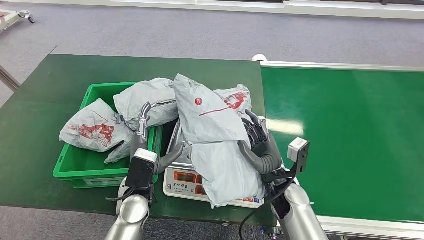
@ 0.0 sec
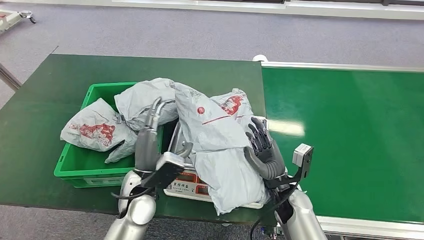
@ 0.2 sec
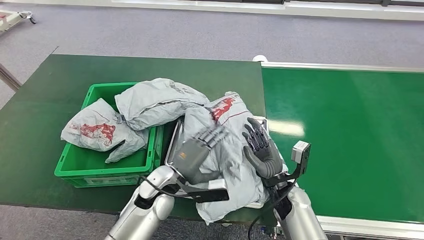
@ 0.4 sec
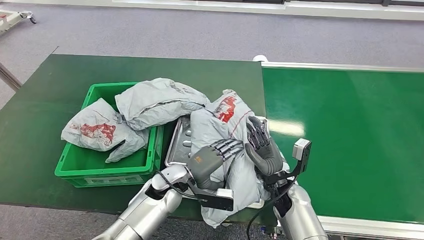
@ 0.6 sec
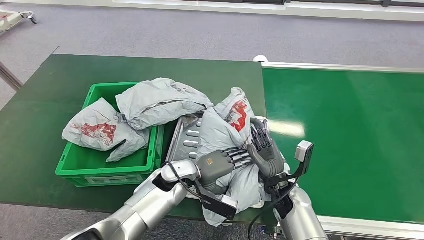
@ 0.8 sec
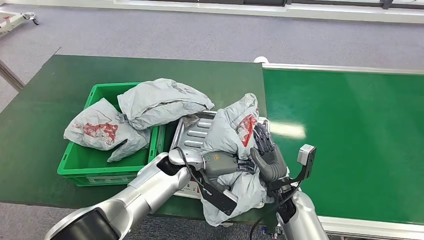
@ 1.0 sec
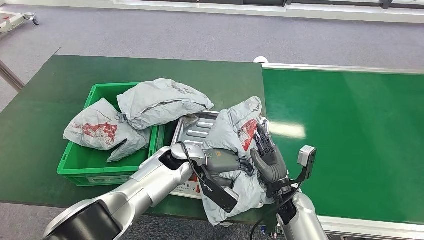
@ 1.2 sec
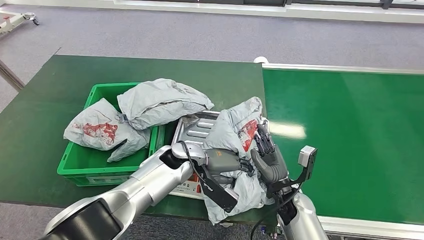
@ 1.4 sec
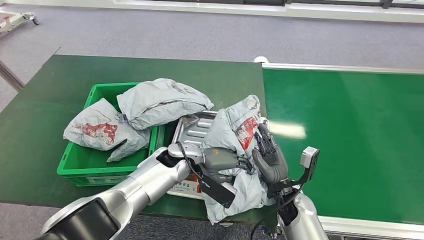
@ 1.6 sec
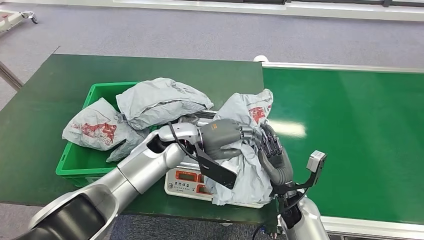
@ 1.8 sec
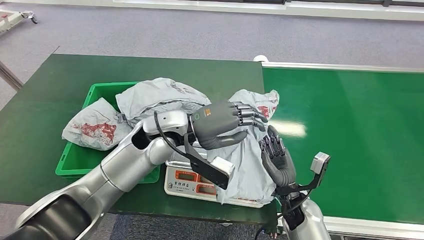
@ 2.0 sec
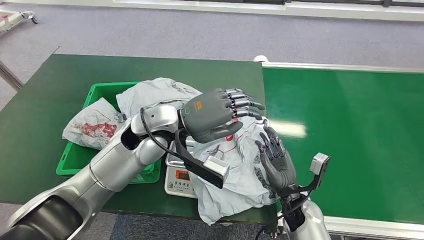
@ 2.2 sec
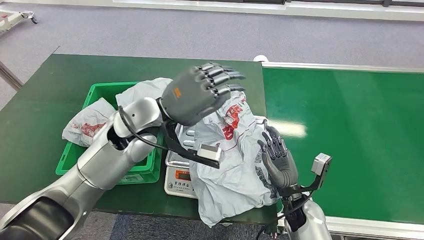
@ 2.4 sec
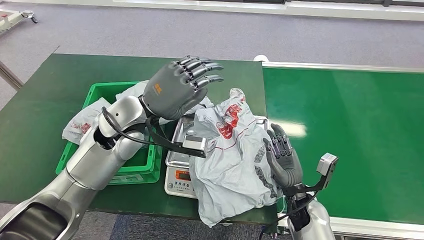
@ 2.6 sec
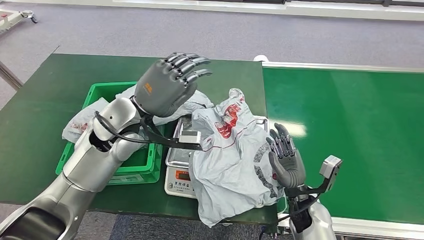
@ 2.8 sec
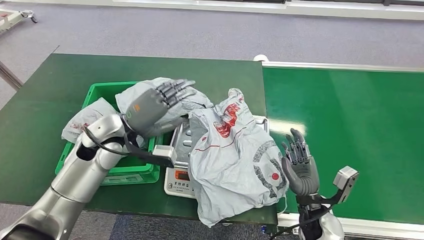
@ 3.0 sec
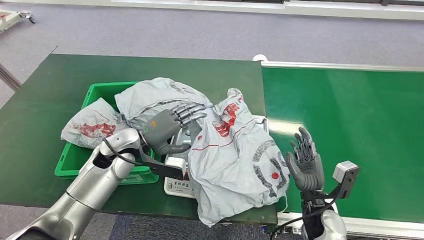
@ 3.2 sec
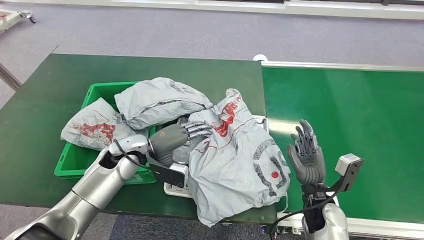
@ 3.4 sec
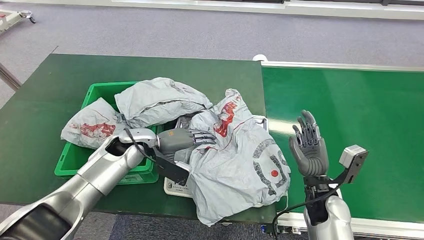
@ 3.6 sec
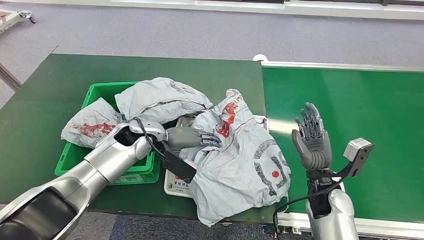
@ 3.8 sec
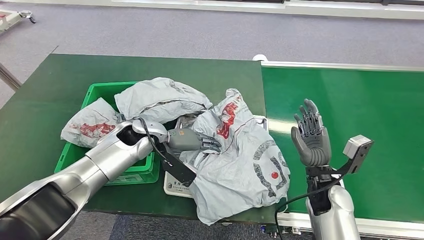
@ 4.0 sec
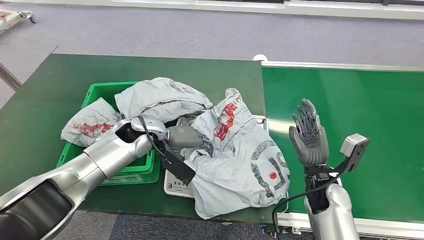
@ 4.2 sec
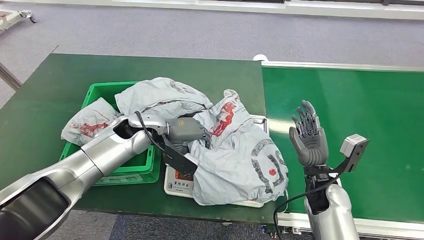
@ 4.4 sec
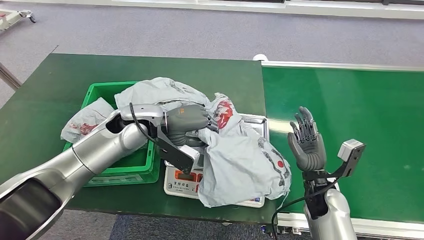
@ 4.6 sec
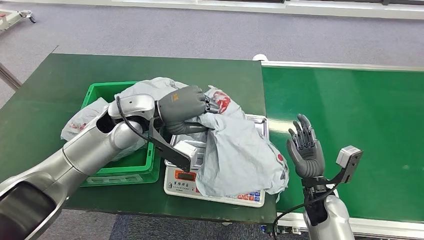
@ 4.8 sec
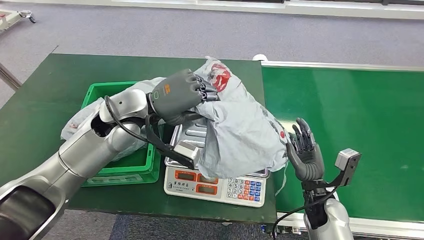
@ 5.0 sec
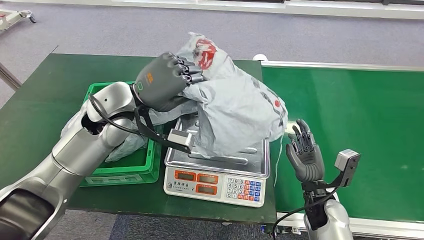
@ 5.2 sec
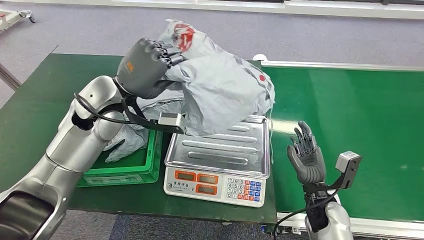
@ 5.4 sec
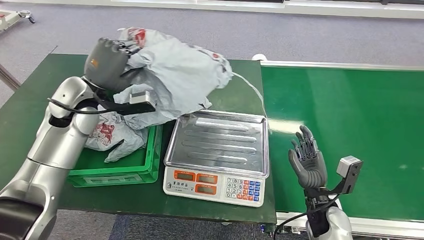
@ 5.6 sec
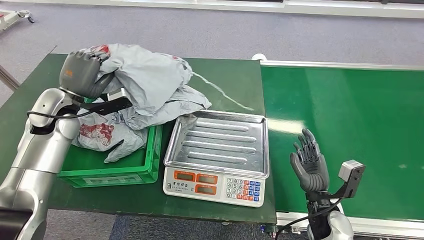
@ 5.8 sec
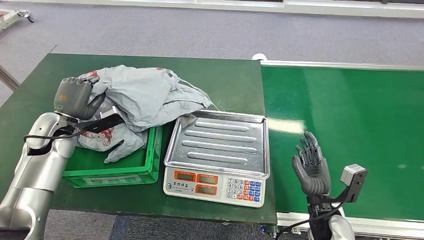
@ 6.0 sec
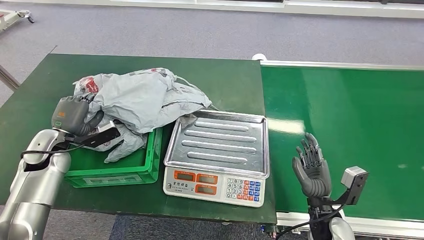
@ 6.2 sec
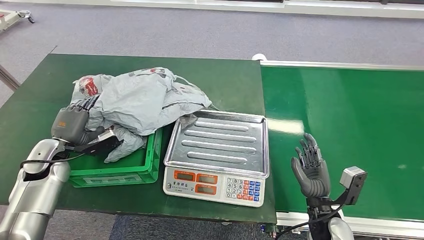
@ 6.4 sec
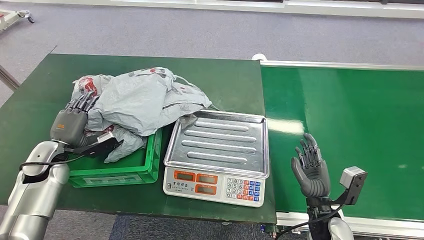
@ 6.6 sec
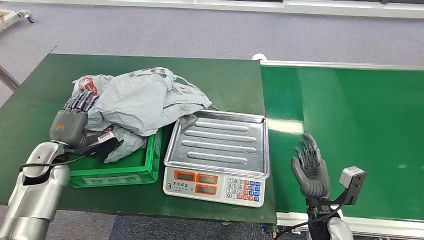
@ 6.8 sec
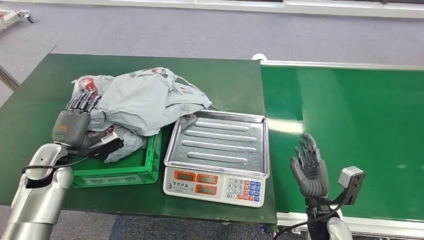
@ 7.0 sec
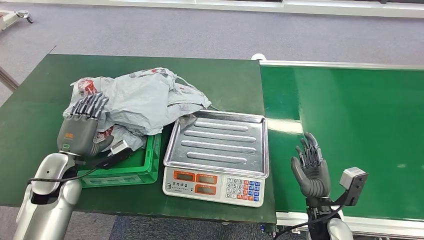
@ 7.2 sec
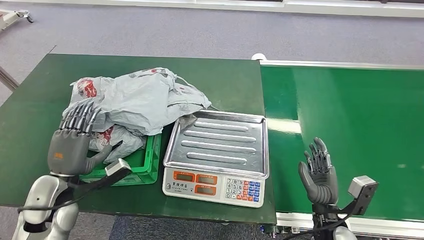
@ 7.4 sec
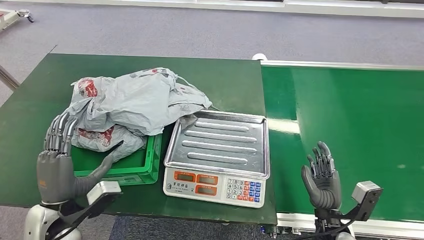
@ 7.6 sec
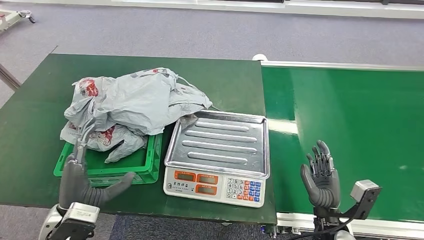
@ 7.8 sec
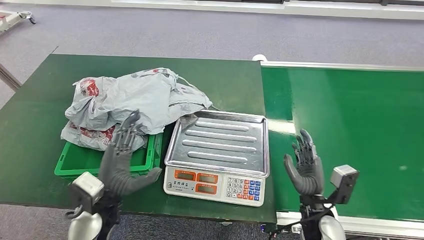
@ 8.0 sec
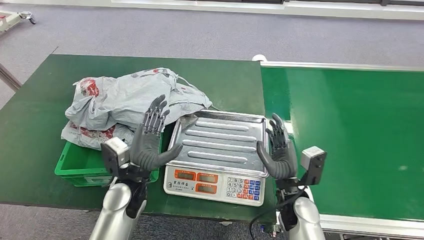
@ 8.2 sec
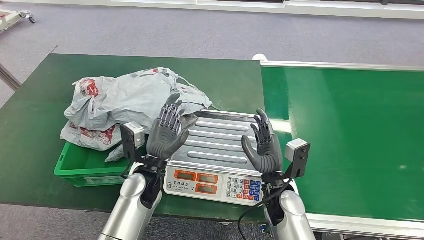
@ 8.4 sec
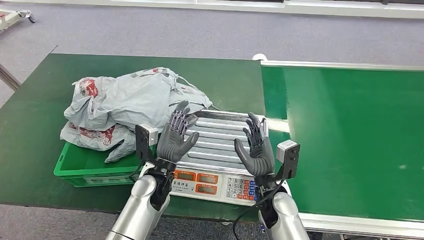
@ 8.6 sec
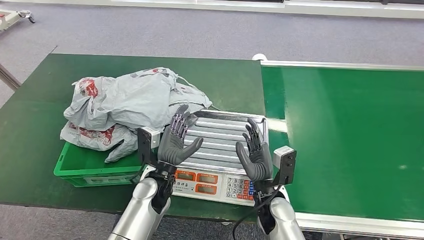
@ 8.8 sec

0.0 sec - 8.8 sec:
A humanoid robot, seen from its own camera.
Step, 0.2 sec - 4.6 sec: Pick up the package from the inbound machine.
Step, 4.8 sec - 8.8 sec: Place the package into the parcel locker.
